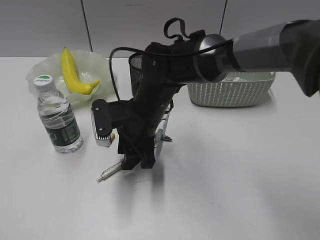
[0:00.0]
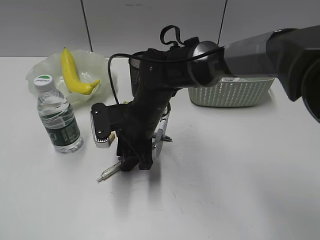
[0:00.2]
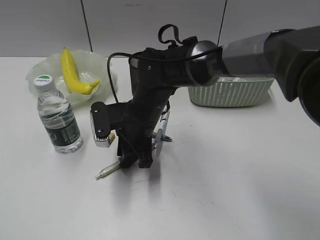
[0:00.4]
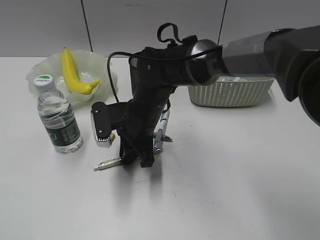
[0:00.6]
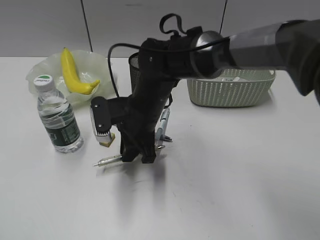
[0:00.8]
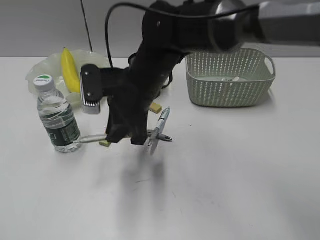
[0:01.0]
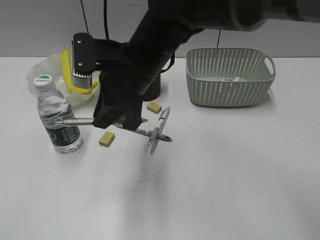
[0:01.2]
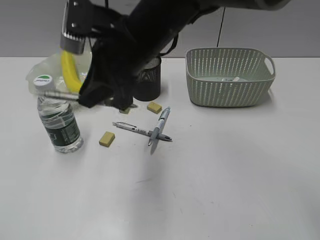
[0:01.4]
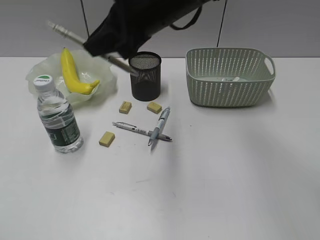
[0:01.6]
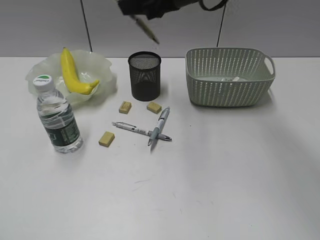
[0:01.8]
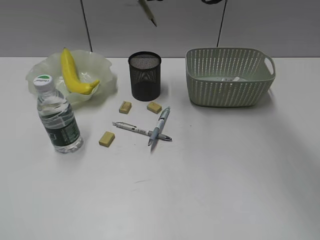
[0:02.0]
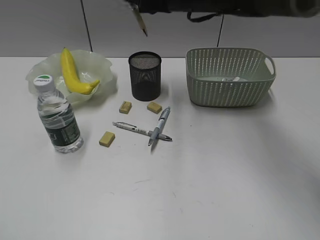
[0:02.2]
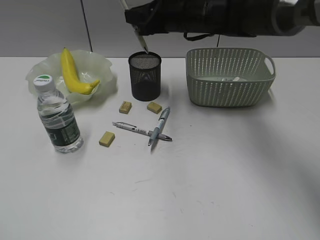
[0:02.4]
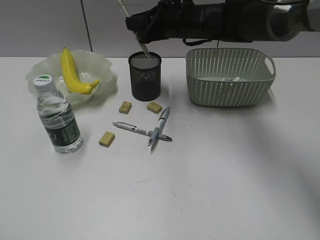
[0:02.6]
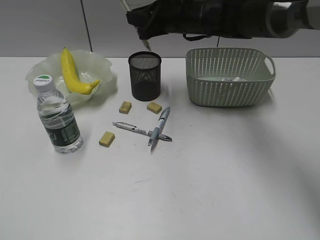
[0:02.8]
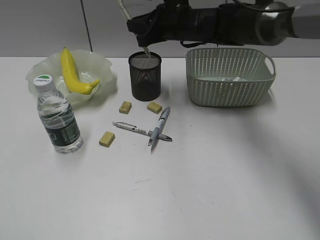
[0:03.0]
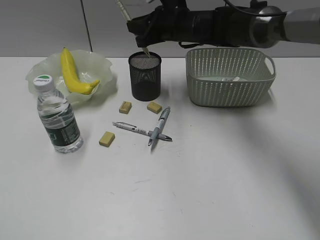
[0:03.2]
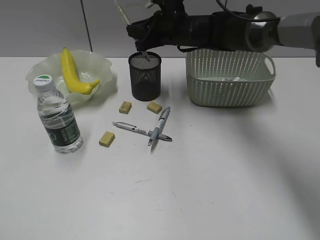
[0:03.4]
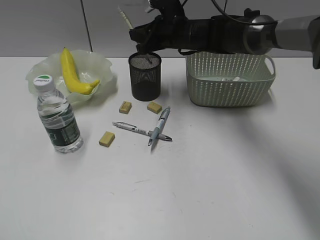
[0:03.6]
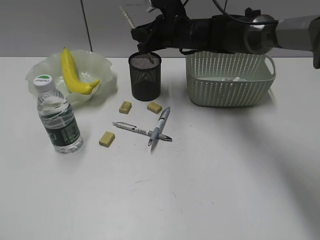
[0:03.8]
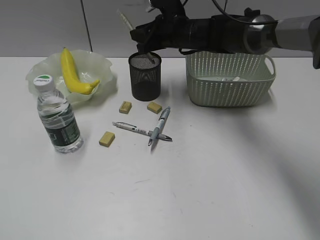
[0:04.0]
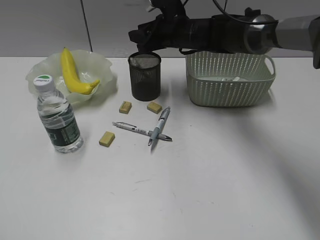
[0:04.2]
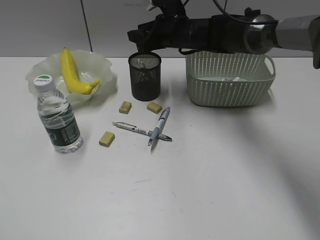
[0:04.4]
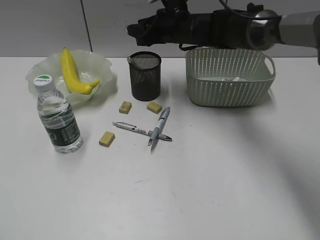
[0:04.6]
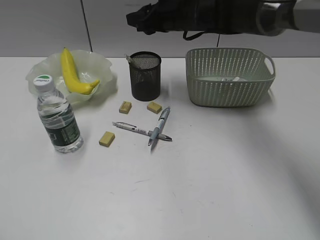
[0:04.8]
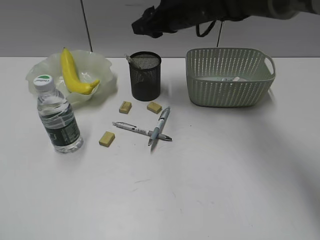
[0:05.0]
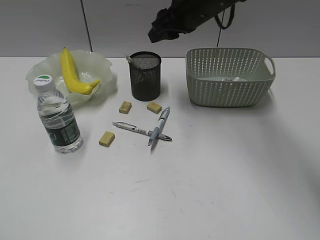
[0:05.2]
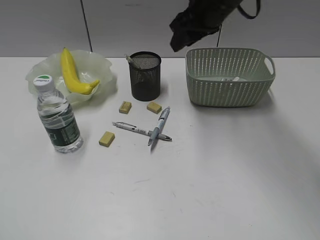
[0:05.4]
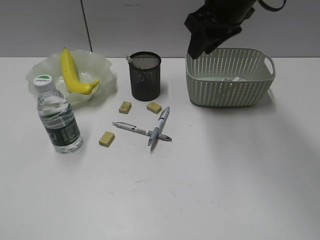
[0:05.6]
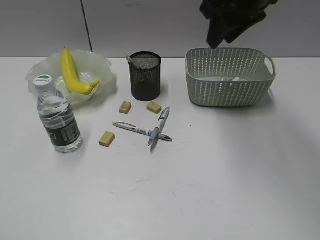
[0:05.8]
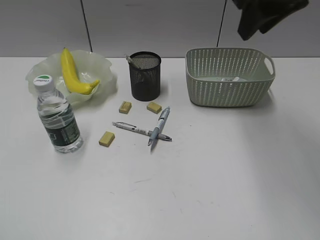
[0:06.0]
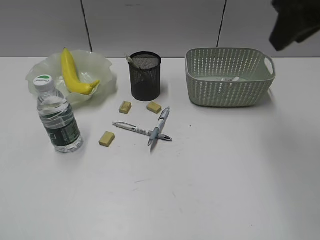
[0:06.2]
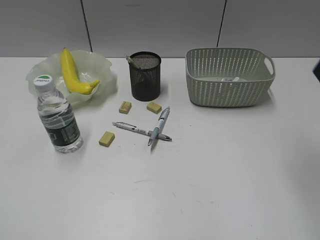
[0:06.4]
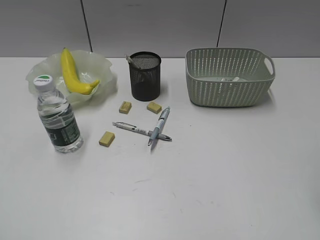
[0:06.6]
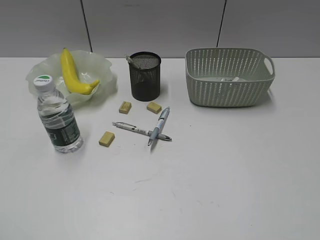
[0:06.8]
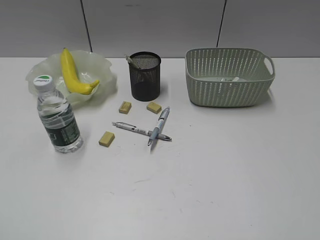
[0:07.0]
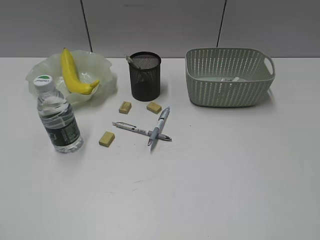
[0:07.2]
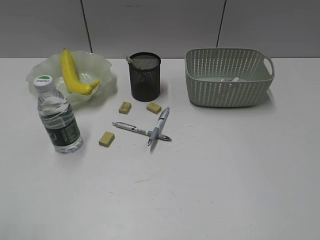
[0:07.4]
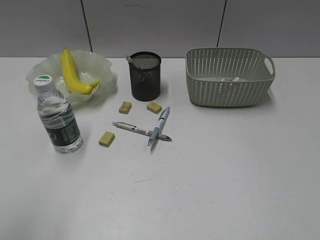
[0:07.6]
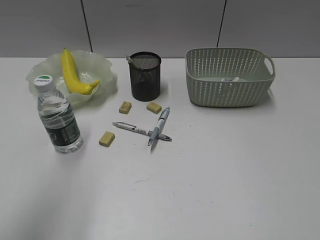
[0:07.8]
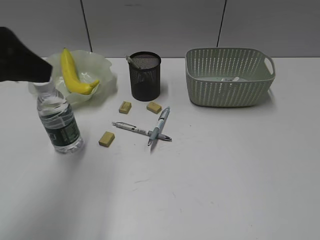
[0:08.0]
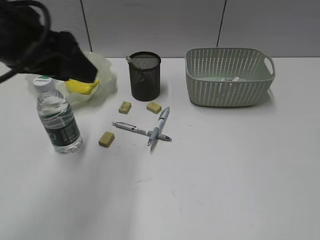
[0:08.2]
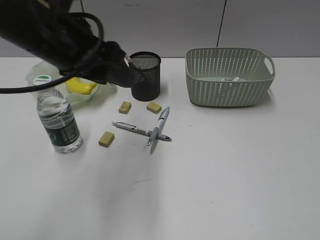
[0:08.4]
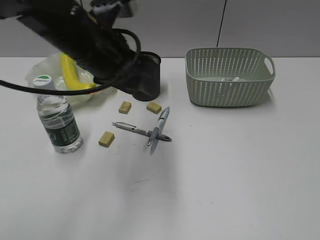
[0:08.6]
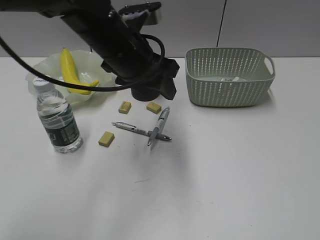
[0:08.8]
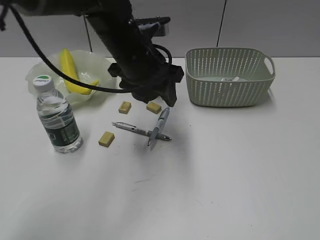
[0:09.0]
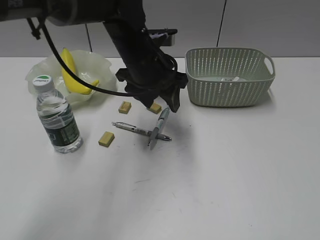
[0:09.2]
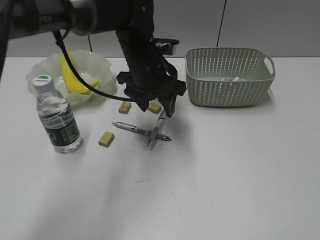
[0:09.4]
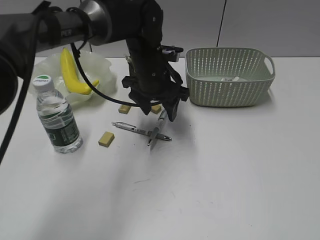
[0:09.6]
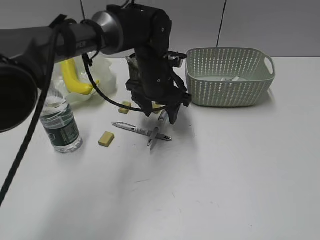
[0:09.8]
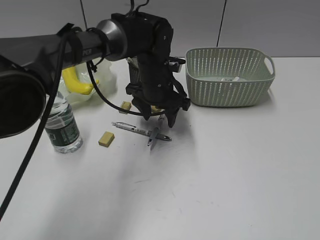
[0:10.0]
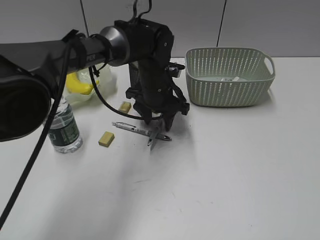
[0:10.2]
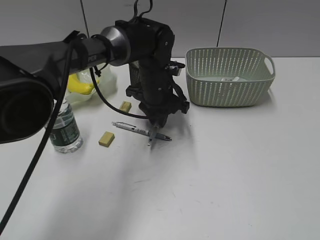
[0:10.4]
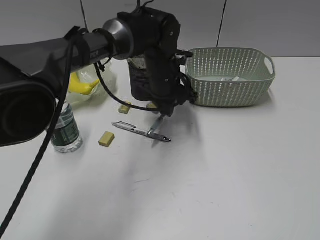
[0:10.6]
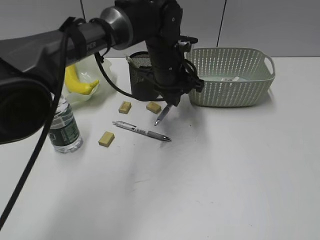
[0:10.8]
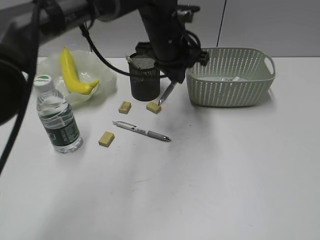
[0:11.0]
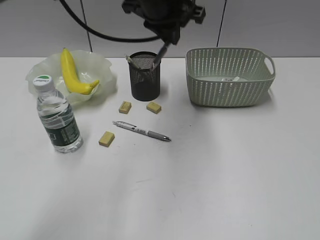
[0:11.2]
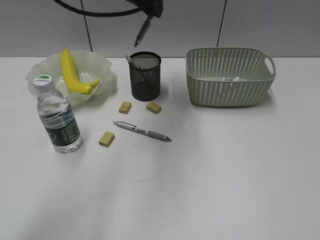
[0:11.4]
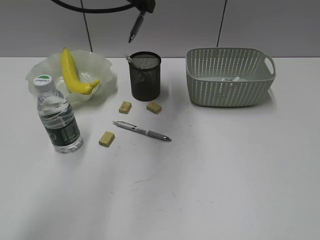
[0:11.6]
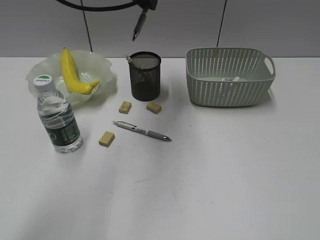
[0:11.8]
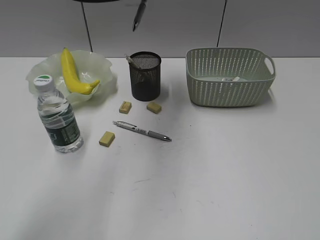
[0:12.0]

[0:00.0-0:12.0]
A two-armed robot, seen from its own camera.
Step, 0:00.8 to 0:04.2: Place the yellow pen in pen holder with right gripper.
Step, 0:04.4 to 0:10.4: Grasp the blue pen with left gripper.
0:00.0 to 0:01.6: The right gripper moves upward, about 20 cm, and closes.
0:01.6 to 0:03.0: The right gripper heads forward and downward, covering roughly 15 cm.
0:03.0 to 0:04.4: The right gripper opens up.
0:04.4 to 0:06.0: The right gripper shifts roughly 25 cm upward, backward and to the right.
0:06.0 to 0:07.6: The left gripper heads upward and forward, covering some 5 cm; the right gripper goes approximately 40 cm backward and to the right.
0:07.6 to 0:09.0: The left gripper moves forward and to the right, about 40 cm.
0:09.0 to 0:10.4: The left gripper goes approximately 10 cm downward and forward, and closes up.
0:10.4 to 0:12.0: The left gripper heads upward, covering roughly 25 cm, and closes up.

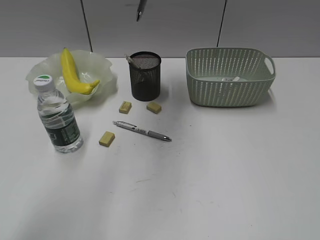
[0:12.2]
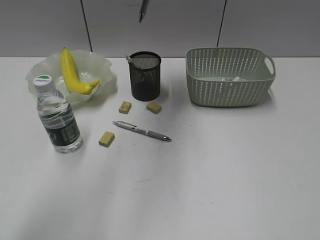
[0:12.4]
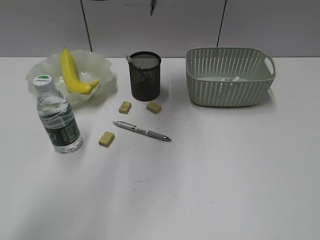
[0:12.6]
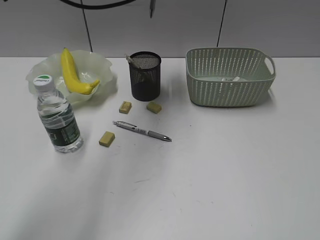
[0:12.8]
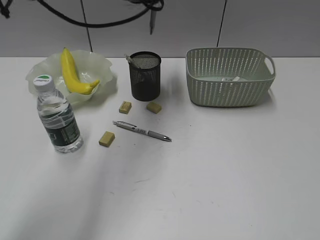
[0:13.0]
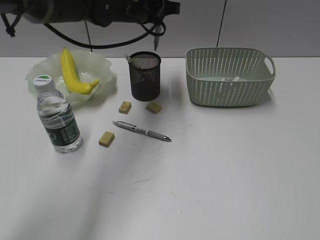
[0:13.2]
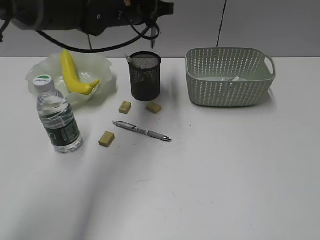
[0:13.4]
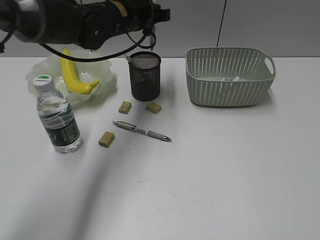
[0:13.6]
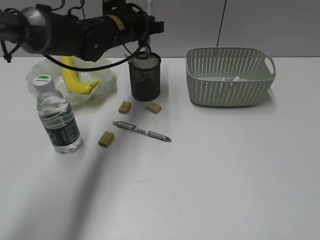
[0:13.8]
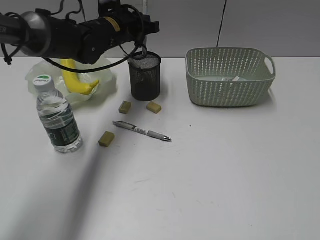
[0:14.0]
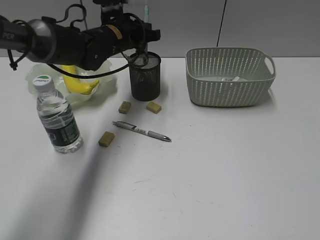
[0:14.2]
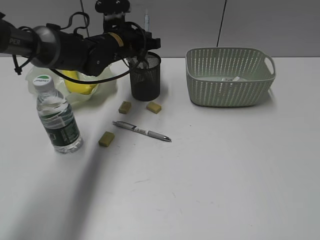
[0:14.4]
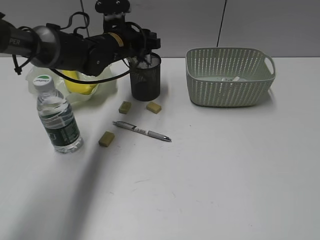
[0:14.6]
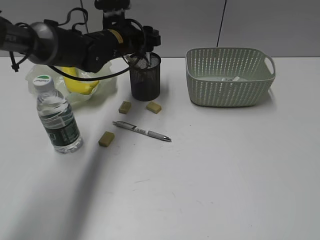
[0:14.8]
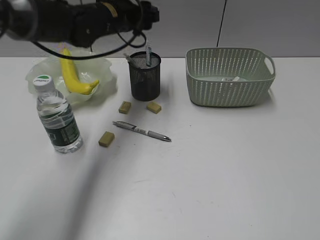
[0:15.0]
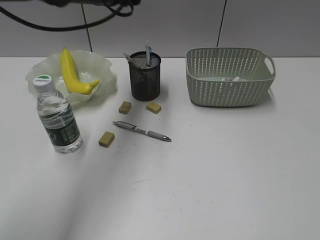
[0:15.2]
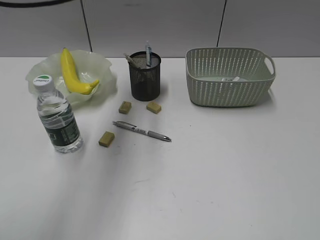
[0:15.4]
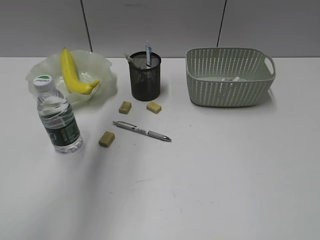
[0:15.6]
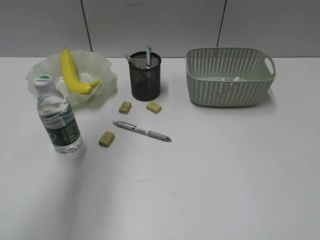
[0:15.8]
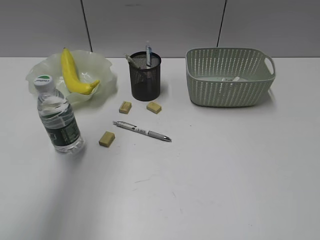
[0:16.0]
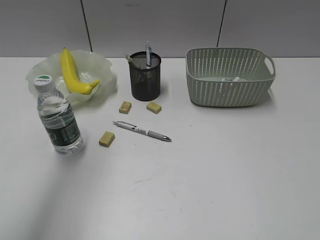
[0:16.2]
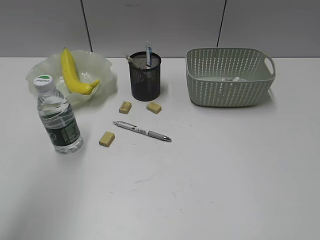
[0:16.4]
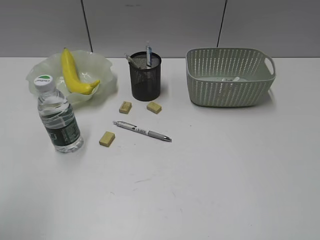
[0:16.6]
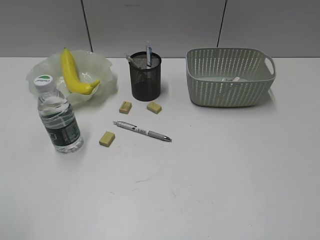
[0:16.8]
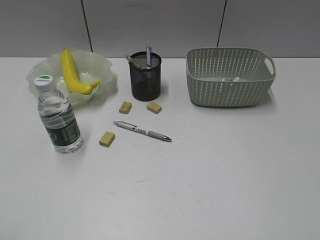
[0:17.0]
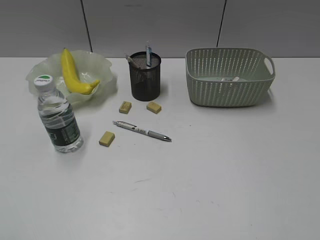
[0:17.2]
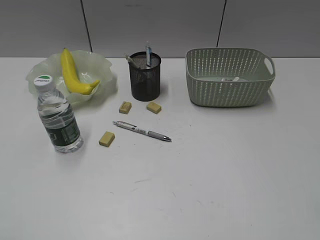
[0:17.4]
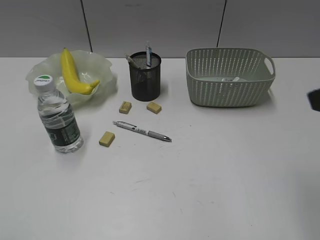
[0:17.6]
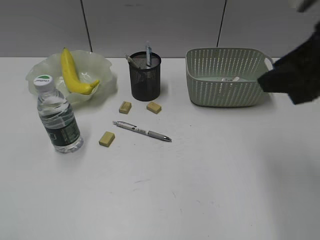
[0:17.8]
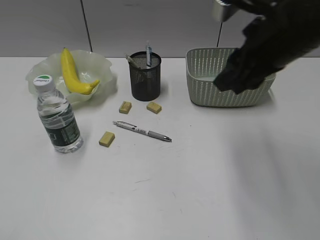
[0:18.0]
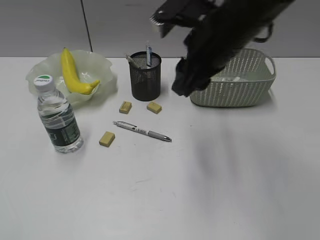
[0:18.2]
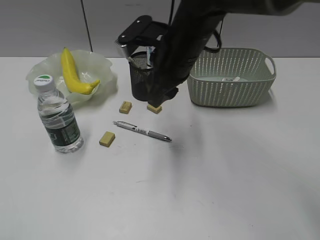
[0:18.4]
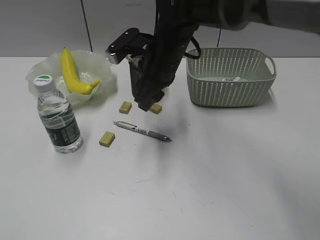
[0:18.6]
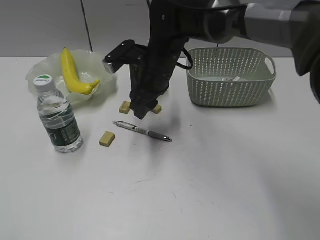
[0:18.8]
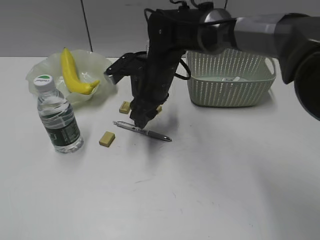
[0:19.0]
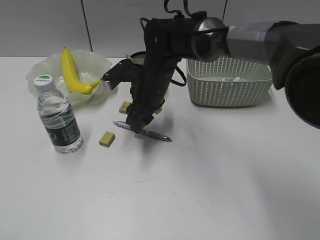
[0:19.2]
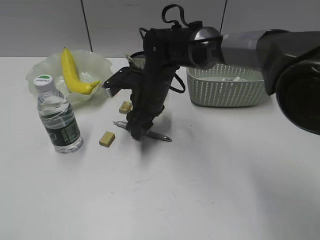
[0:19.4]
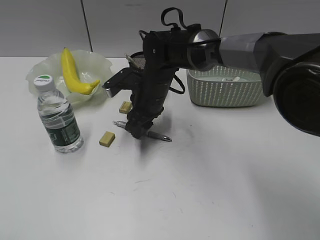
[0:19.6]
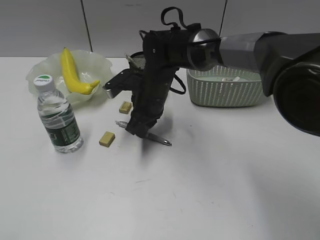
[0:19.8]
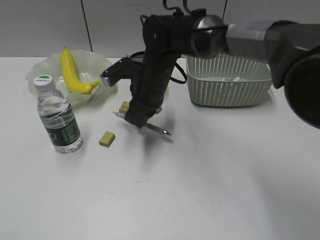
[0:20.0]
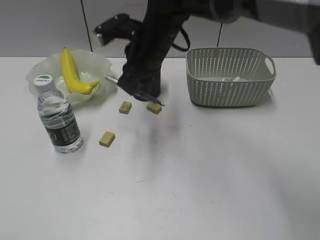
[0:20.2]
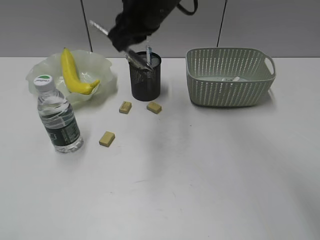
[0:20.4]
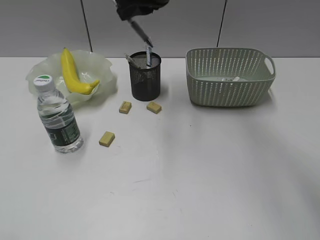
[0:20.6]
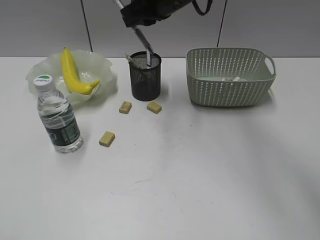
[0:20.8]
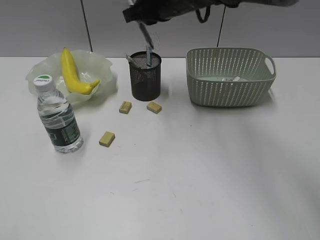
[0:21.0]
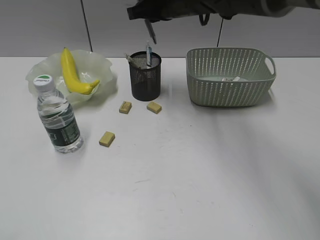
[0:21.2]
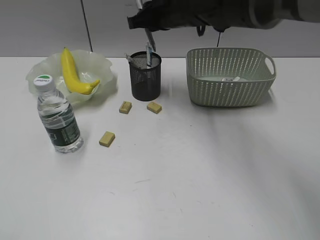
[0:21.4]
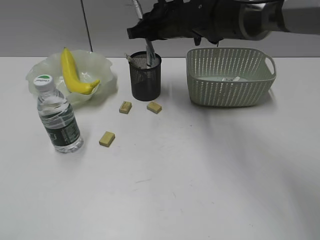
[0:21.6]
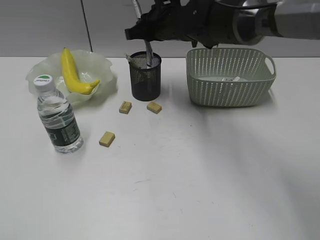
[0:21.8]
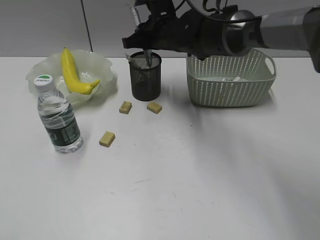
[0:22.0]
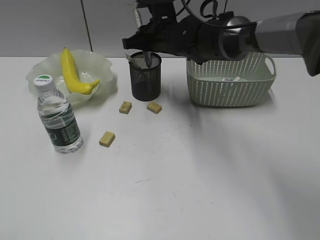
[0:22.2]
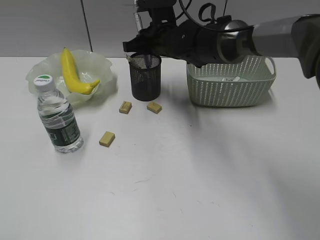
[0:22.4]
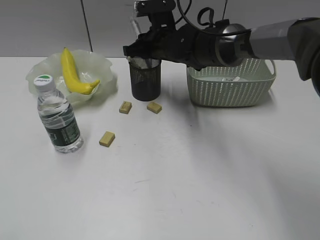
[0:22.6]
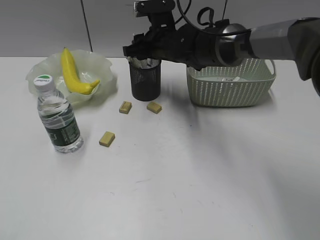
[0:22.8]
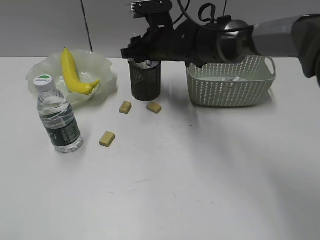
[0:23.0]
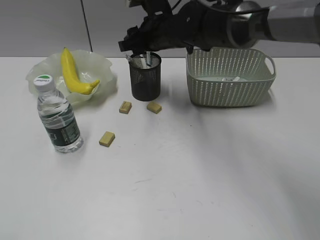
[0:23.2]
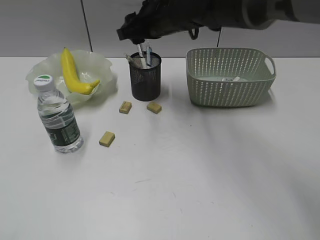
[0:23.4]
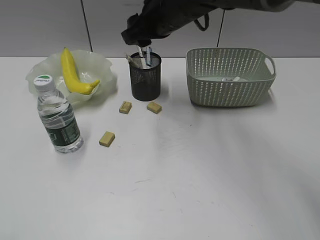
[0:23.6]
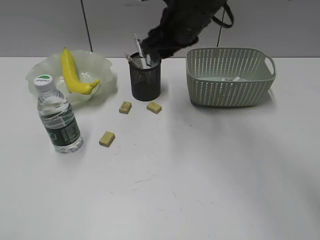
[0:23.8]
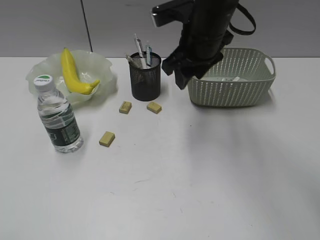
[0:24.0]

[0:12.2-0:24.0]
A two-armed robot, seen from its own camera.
Step, 0:12.2 to 0:14.8: Place the blue pen in pen holder with left gripper.
Step, 0:15.0 to 0:19.8: Grasp the gray pen with right gripper.
Step, 0:20.0 to 0:23.0: Place the gray pen in pen holder with right gripper.
0:12.2 to 0:13.6: The left gripper heads downward, covering approximately 15 cm.
0:13.6 to 0:15.2: The left gripper moves upward, about 5 cm, and opens.
0:15.2 to 0:16.6: The left gripper shifts about 40 cm backward and to the left.
0:16.6 to 0:18.2: The right gripper goes approximately 40 cm forward and to the left. Meanwhile the left gripper goes roughly 10 cm backward and downward.
0:18.2 to 0:19.6: The right gripper travels downward, to the left and forward by approximately 20 cm.
0:19.6 to 0:21.0: The right gripper travels upward by roughly 15 cm, and closes its fingers.
0:21.0 to 0:22.6: The right gripper travels downward by approximately 10 cm.
0:22.6 to 0:24.0: The right gripper is displaced upward and backward by approximately 10 cm, and opens.
